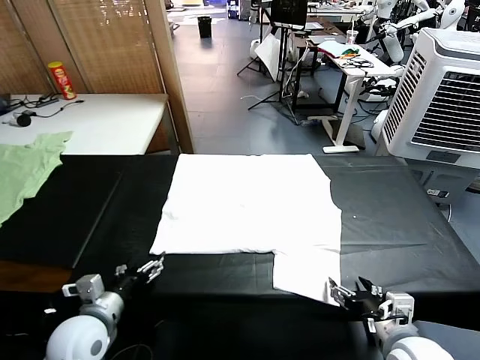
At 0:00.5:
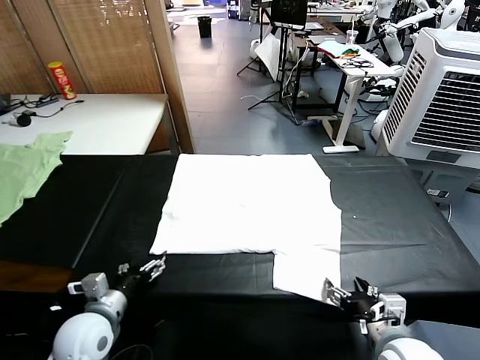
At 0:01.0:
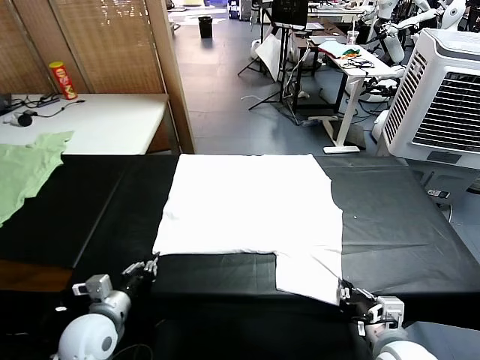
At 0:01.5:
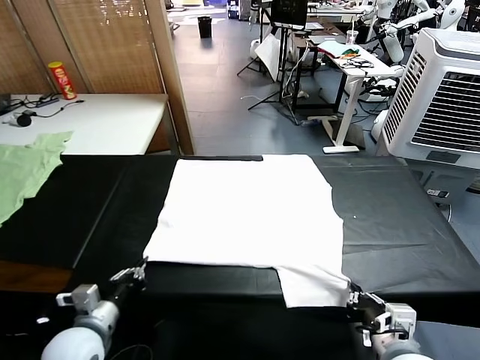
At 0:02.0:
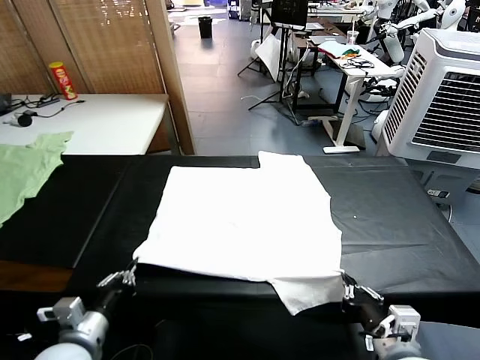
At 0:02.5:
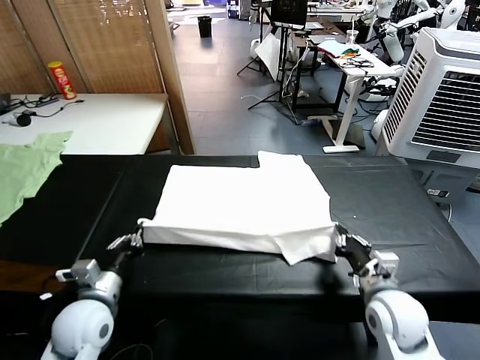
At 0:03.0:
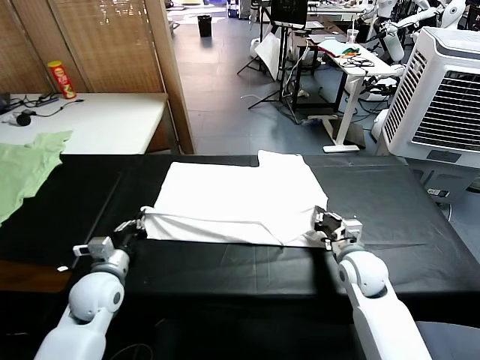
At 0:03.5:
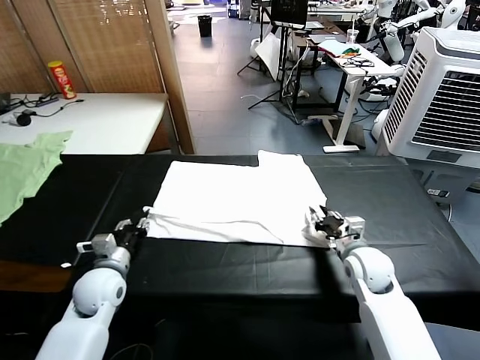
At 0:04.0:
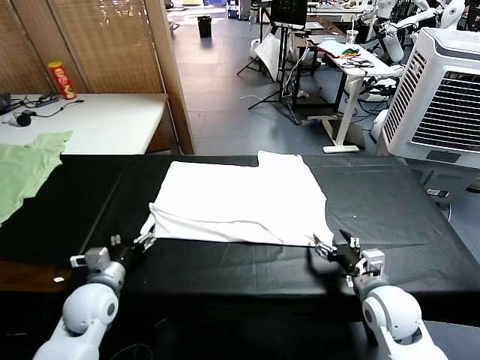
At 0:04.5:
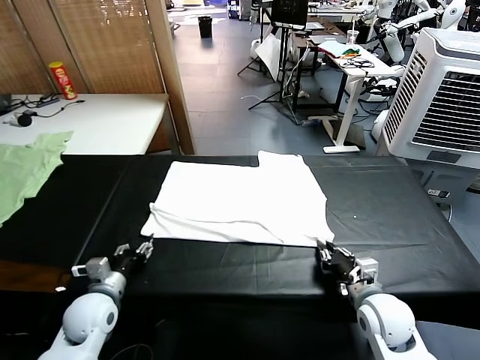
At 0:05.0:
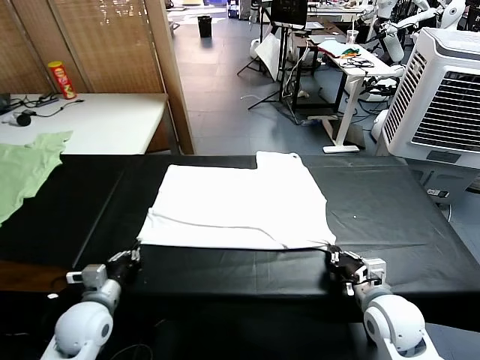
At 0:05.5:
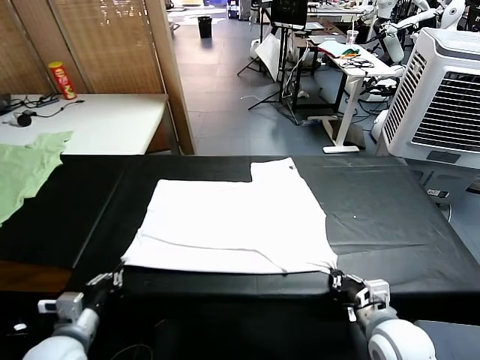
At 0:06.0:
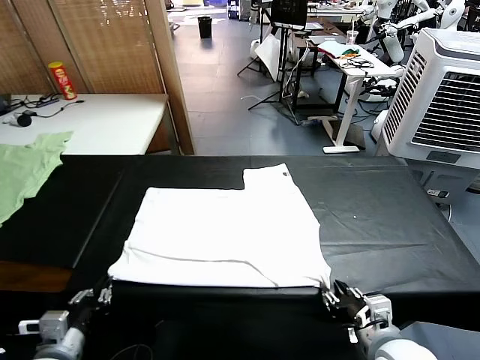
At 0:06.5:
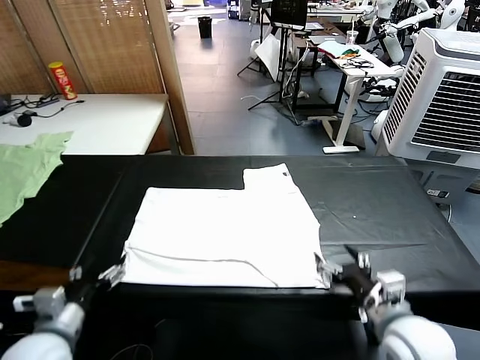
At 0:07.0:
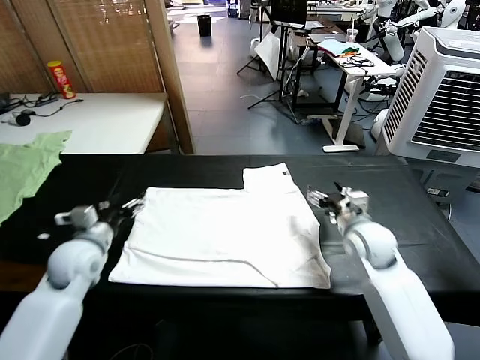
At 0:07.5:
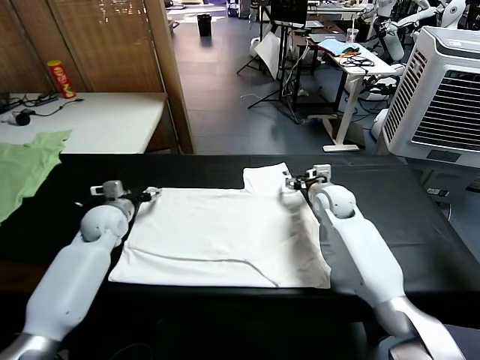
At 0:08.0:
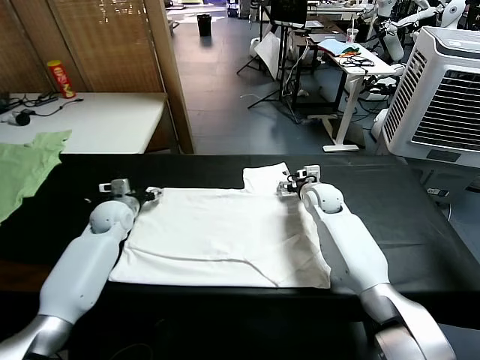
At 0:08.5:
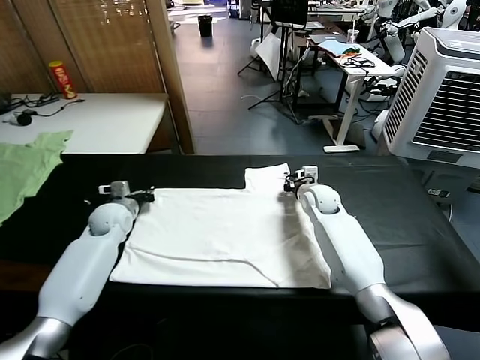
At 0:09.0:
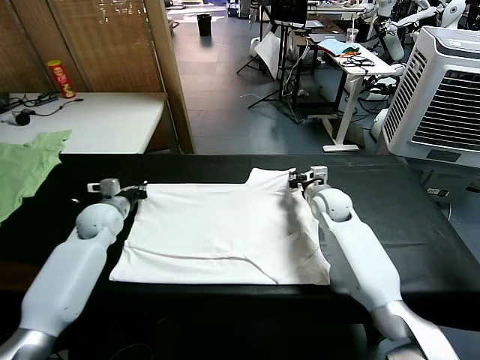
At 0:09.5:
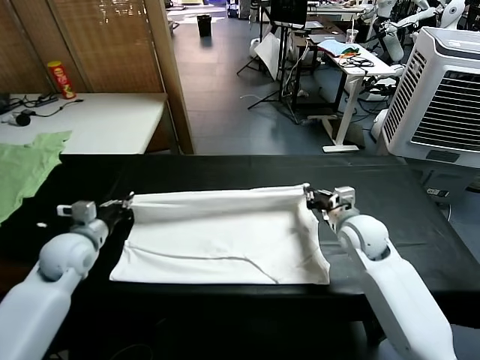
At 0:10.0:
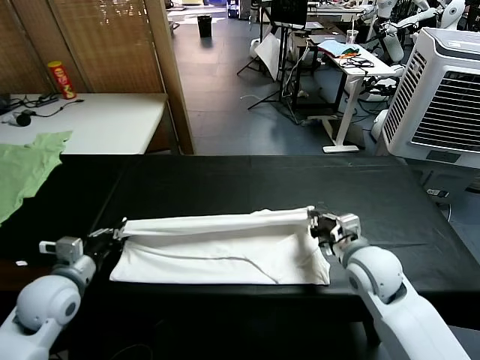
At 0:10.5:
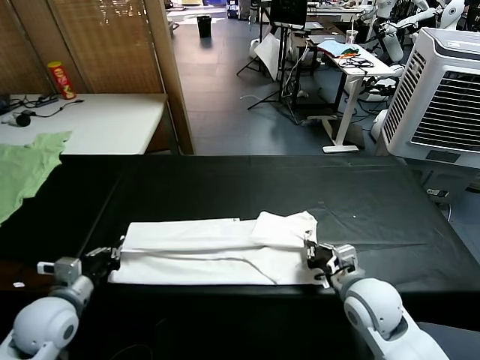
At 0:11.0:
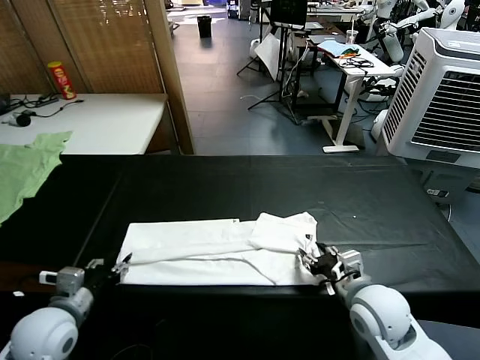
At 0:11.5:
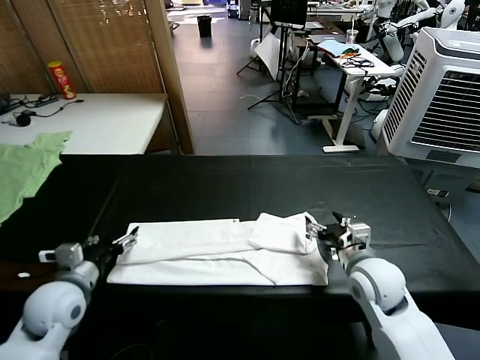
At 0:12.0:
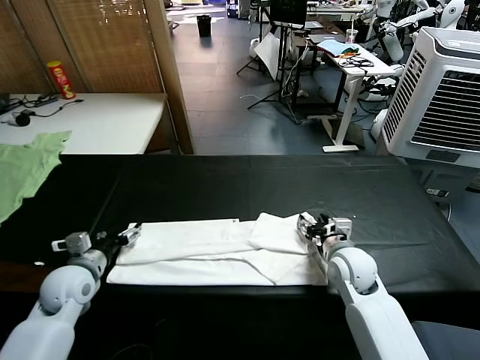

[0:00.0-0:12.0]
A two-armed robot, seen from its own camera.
Task of the whole recording: fold and organize the clothes.
Step, 0:00.0 to 0:01.0: use both grippers simultaneously to clamp the lower edge of the clothing fabric.
Step, 0:01.5 to 0:03.5: use both grippers to drag the lower edge of the fabric forward and fold it over the upper edge.
Step, 0:04.0 to 0:06.0: Drag the clothes downward with both gripper.
Step, 0:06.5 to 0:08.0: use both grippers simultaneously to clamp the upper edge of the clothing fabric.
Step, 0:08.5 to 0:11.0: use both grippers to drag the upper edge of the fabric backward and fold it over the lower edge.
0:02.0 to 0:04.0: The left gripper moves forward, roughly 10 cm, and opens its fingers. The right gripper goes about 10 cm forward and downward, and opens.
0:04.0 to 0:06.0: The left gripper travels backward by roughly 15 cm, and closes up. The right gripper shifts roughly 10 cm backward and upward, and closes and opens again.
0:06.0 to 0:08.0: Both grippers move forward, roughly 40 cm.
0:08.0 to 0:10.0: The two grippers go about 25 cm backward. The left gripper closes up. Meanwhile the right gripper closes up.
0:10.0 to 0:12.0: The right gripper shifts about 10 cm downward and forward, and opens; the left gripper moves some 5 cm, and opens its fingers.

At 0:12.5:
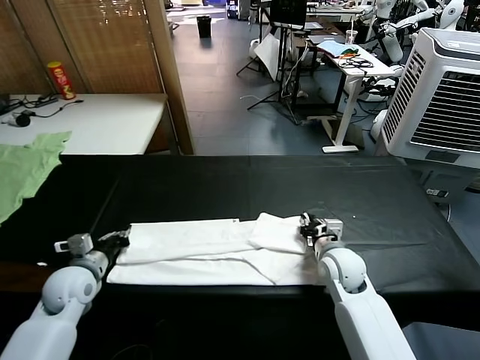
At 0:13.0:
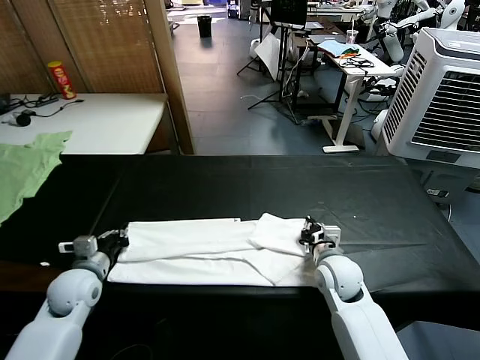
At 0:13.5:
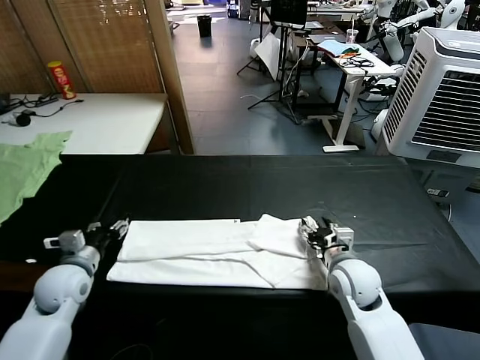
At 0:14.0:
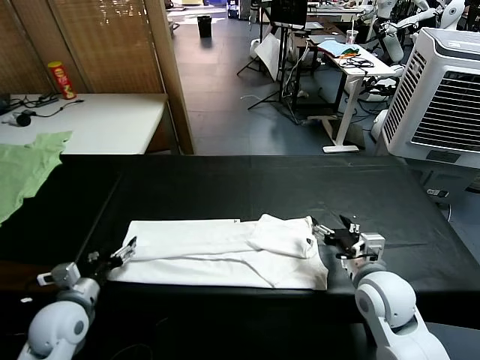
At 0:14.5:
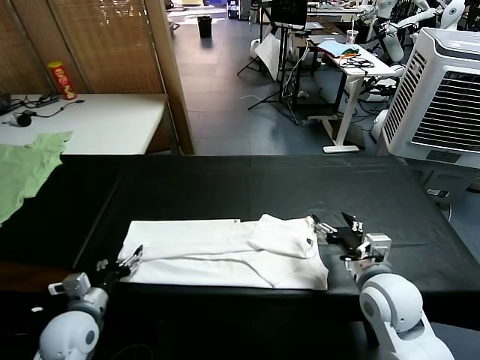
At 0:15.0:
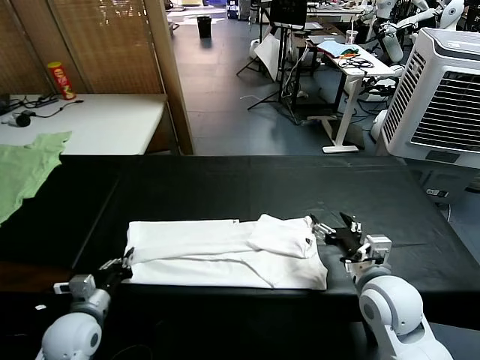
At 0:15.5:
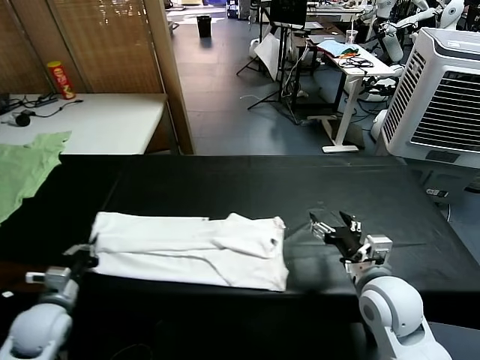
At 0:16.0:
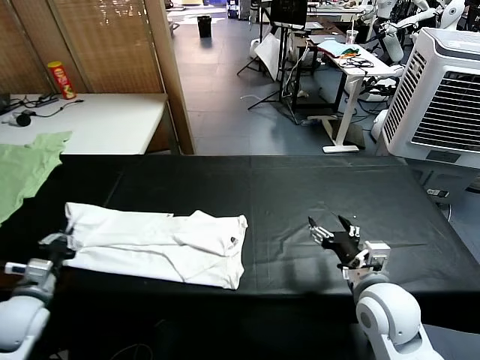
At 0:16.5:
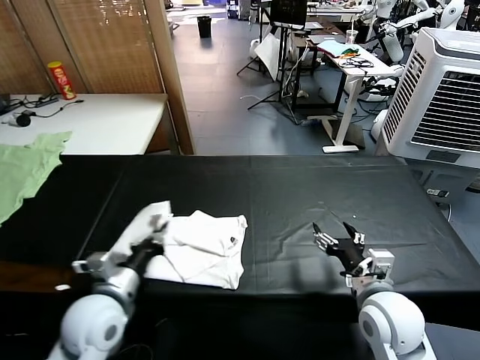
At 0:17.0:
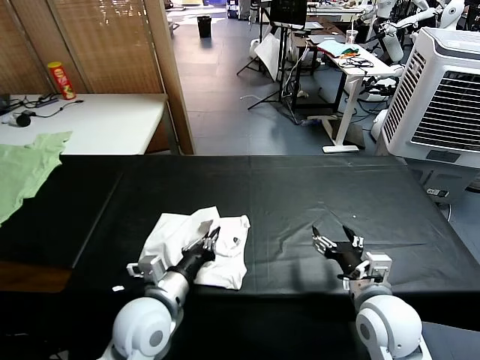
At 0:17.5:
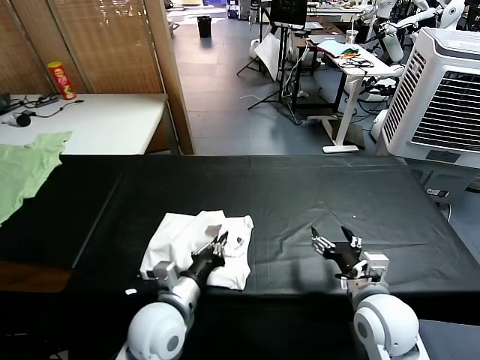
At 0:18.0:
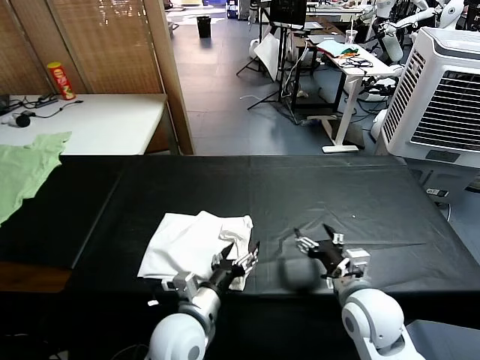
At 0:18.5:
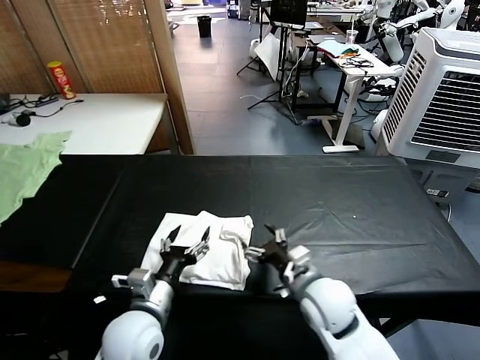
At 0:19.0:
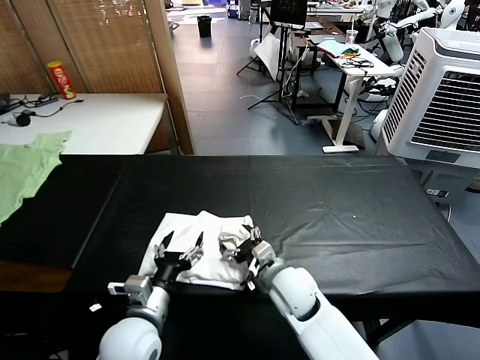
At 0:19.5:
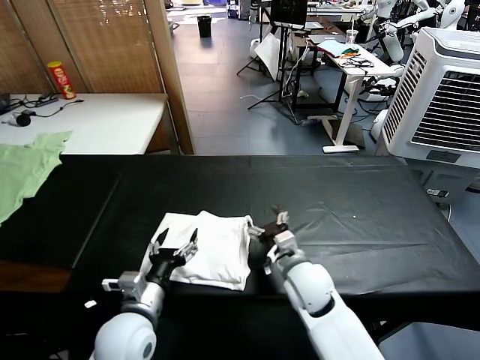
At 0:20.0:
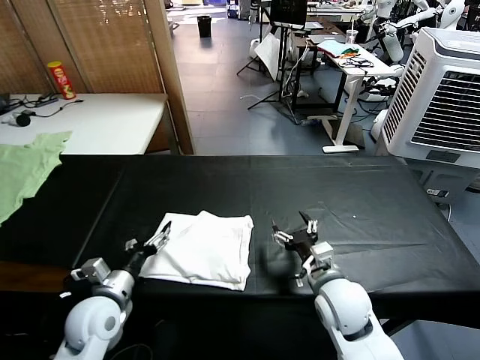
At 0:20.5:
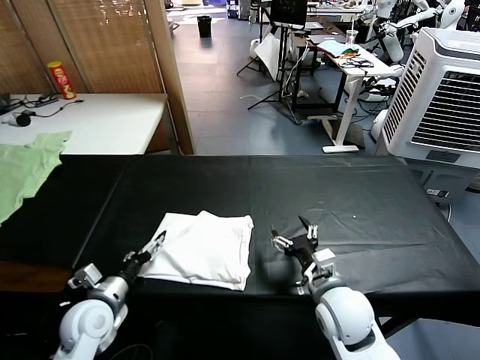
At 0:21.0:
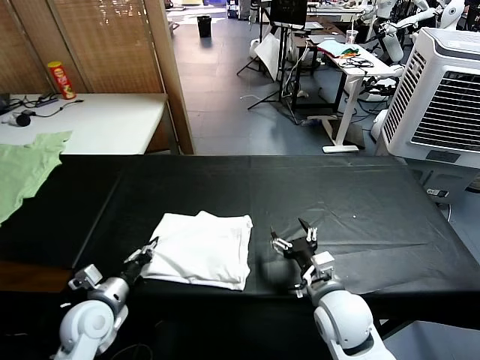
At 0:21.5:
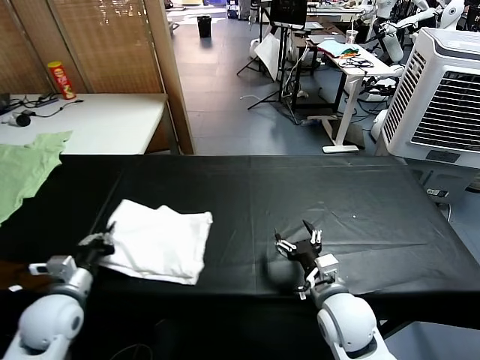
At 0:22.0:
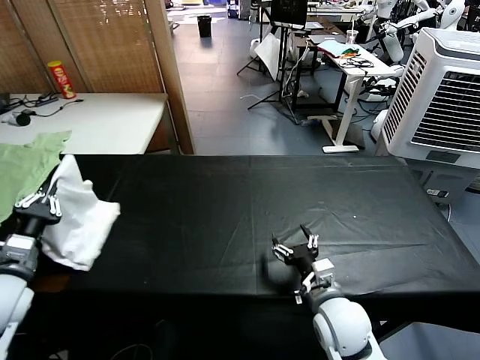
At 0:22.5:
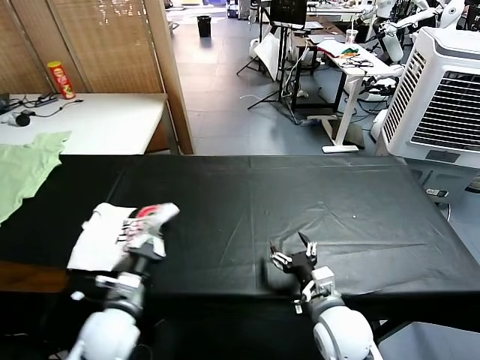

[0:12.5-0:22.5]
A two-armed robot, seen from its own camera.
Task of the whole recording: fold and organize the clothes.
Step, 0:12.5 to 0:15.0: use the left gripper to clamp the left edge of the fabric.
Step, 0:15.5 to 0:17.5: use the left gripper to drag the left edge of the fabric to the left and folds it over the right edge.
0:12.5 to 0:14.5: The left gripper travels backward by roughly 10 cm, and opens its fingers. The right gripper travels backward and upward by about 15 cm, and opens up.
0:14.5 to 0:16.5: The left gripper travels to the right and upward by some 10 cm, and closes.
0:16.5 to 0:18.5: The left gripper goes about 5 cm to the right, and opens up, while the right gripper moves to the left, about 10 cm.
0:18.5 to 0:20.5: The left gripper goes about 15 cm to the left and downward.
0:20.5 to 0:22.5: The left gripper goes to the left and returns, about 10 cm each way, and closes up.

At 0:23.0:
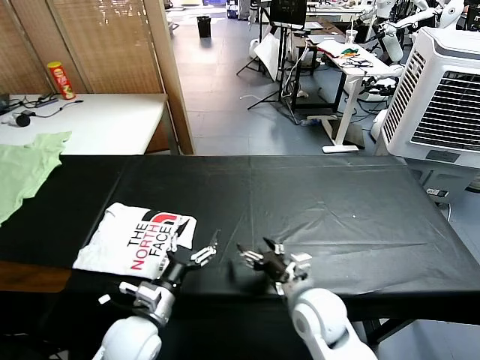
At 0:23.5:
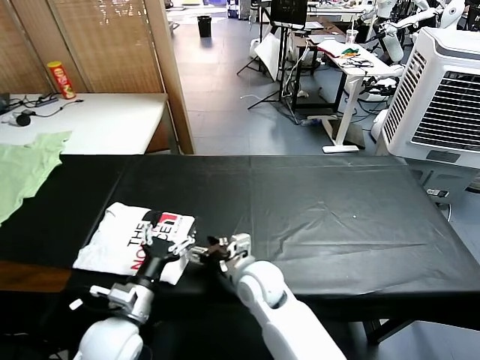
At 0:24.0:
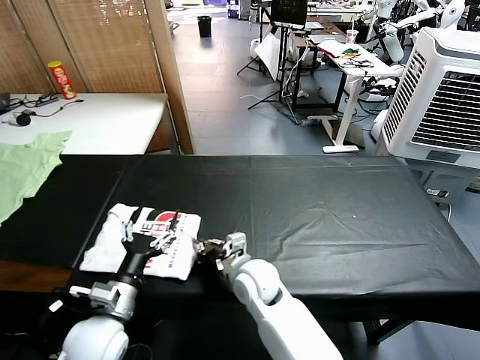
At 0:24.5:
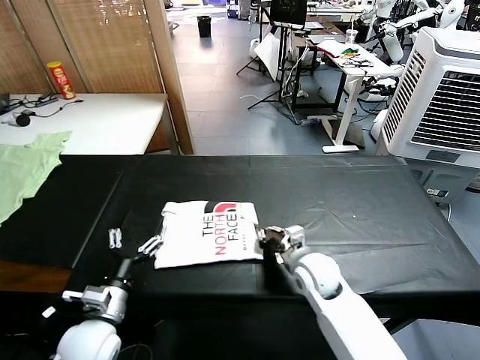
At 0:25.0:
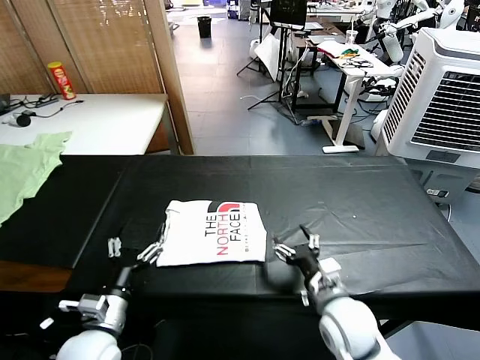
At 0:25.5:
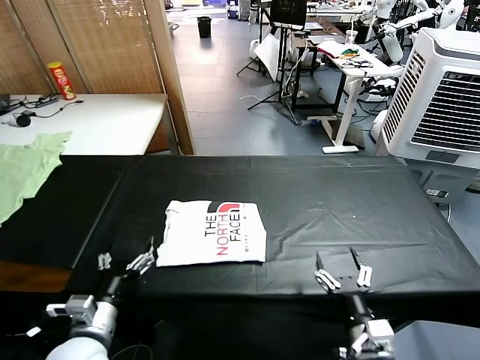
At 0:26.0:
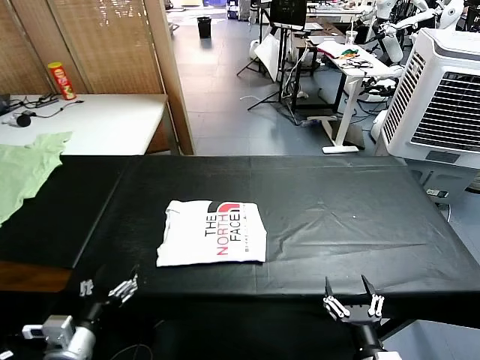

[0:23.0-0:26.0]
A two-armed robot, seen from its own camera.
Task of the whole recording: fold and organize the clothes.
Step, 0:23.0 to 0:24.5: Drag the clothes to the center of the table.
0:23.0 to 0:24.5: The right gripper moves forward, some 10 cm, travels to the left and back again, some 15 cm each way, and closes its fingers. Meanwhile the left gripper is displaced to the left by some 5 cm.
0:24.5 to 0:26.0: The right gripper goes about 25 cm backward, and opens; the left gripper travels backward by some 5 cm.
